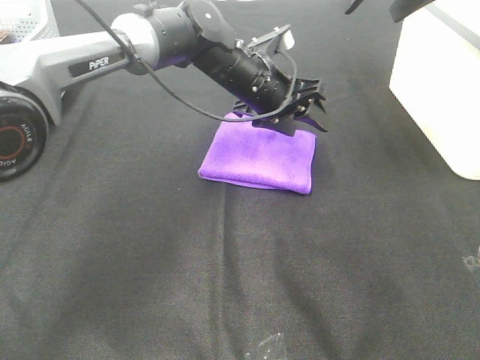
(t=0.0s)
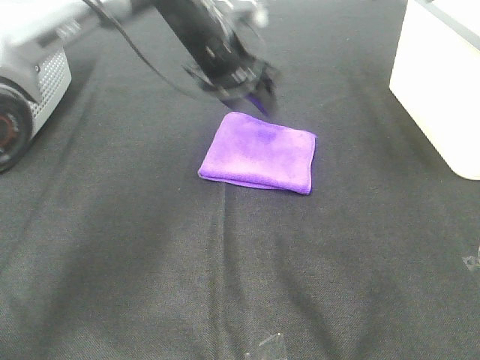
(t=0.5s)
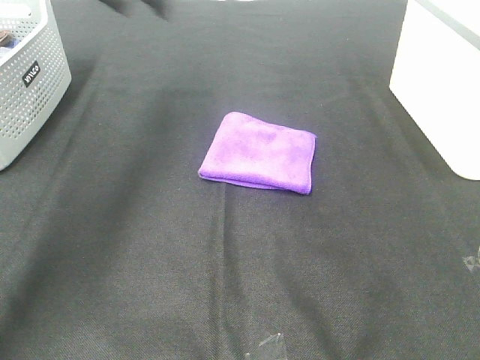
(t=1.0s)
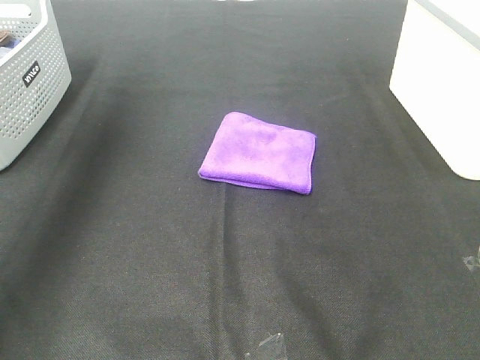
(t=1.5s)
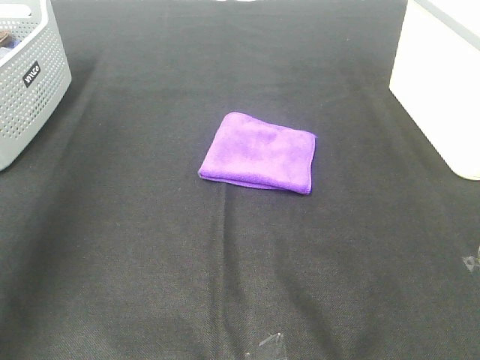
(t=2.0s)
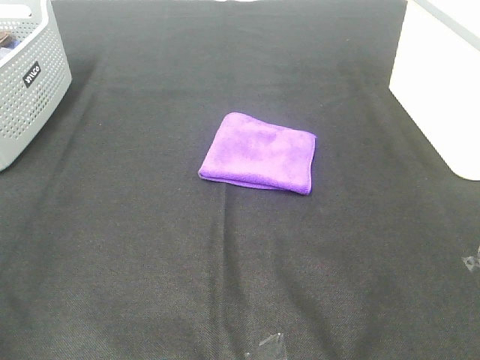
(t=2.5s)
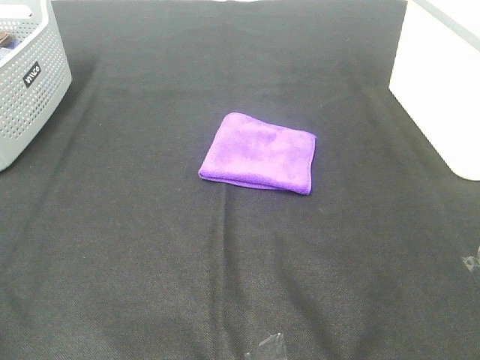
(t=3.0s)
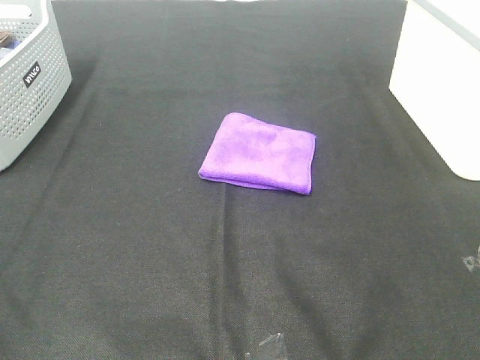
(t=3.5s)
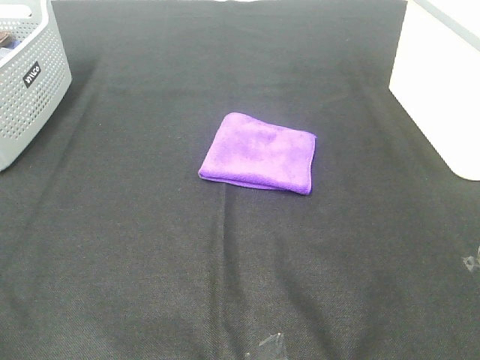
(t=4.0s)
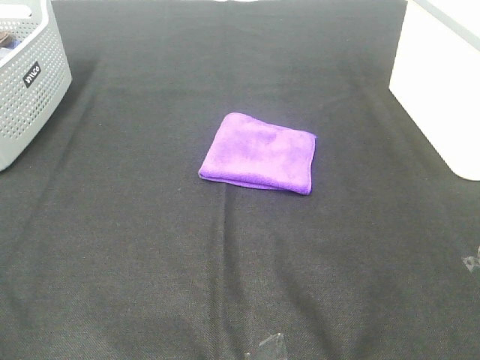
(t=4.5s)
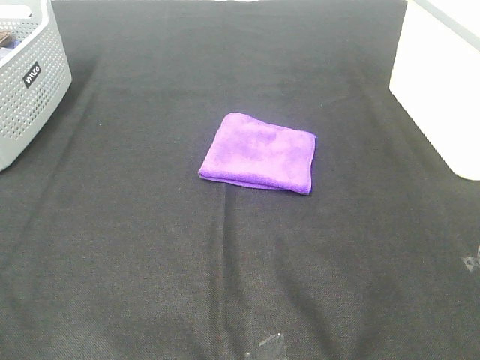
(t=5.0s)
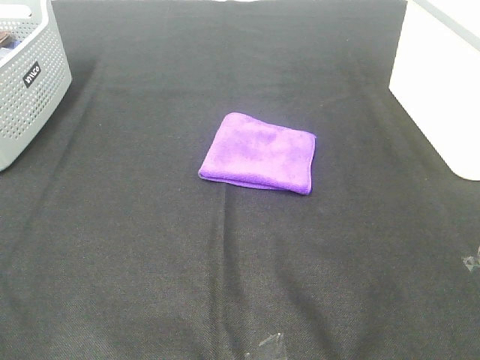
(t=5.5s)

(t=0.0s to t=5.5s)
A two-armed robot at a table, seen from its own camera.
Task of the whole recording: Fold towels.
t=0.0s - t=2.0s: The right gripper goes some 30 cm backward. Meanwhile the left gripper moves to the left, backward and upward, approximately 50 cm.
t=2.0s - t=3.5s: The left gripper moves backward and downward, roughly 25 cm.
